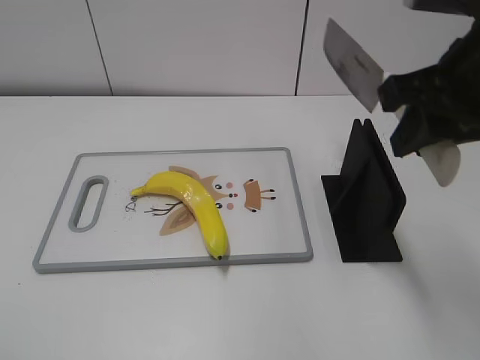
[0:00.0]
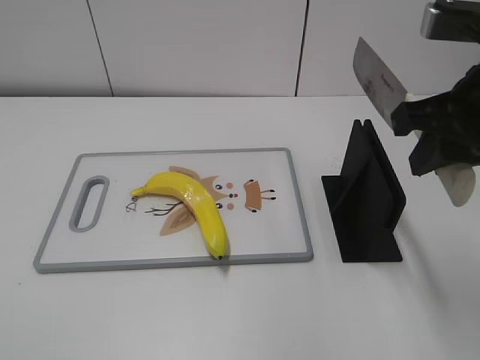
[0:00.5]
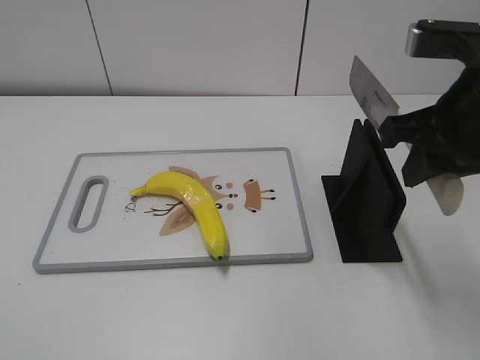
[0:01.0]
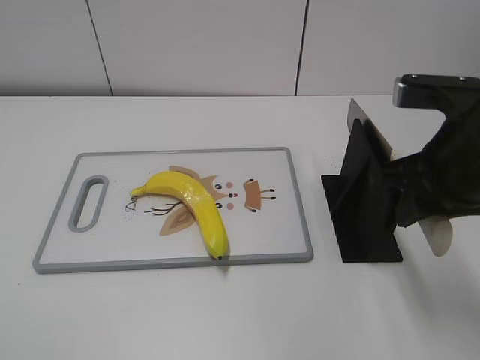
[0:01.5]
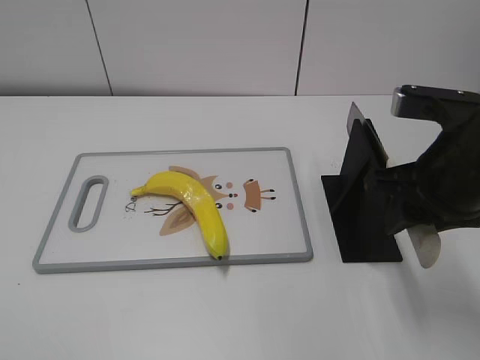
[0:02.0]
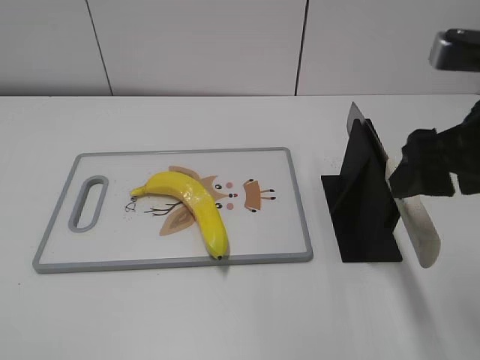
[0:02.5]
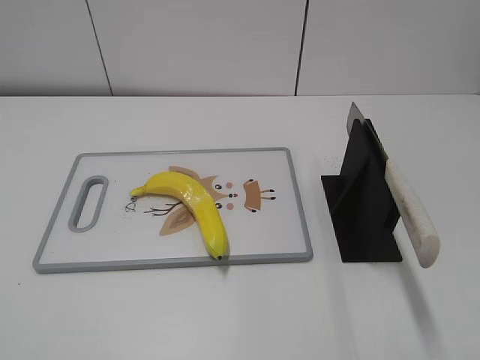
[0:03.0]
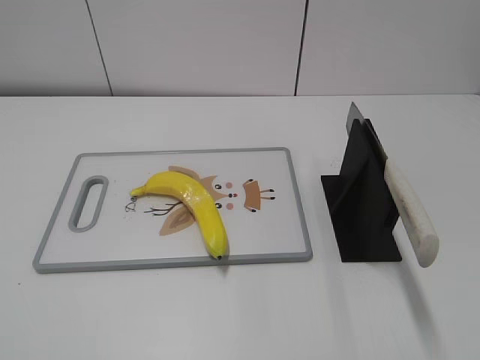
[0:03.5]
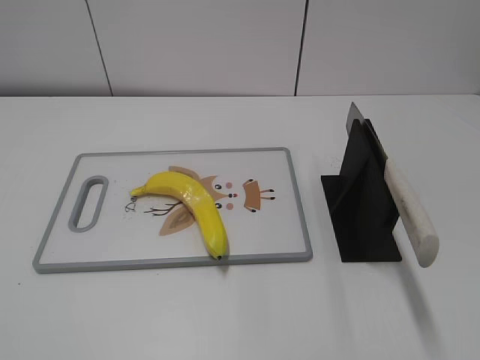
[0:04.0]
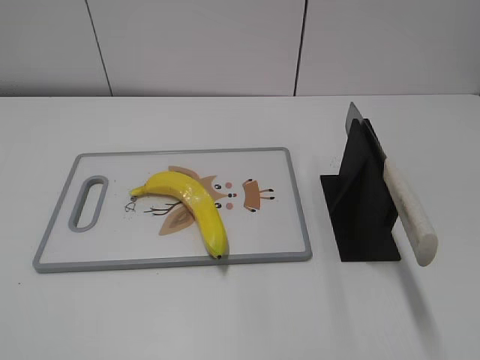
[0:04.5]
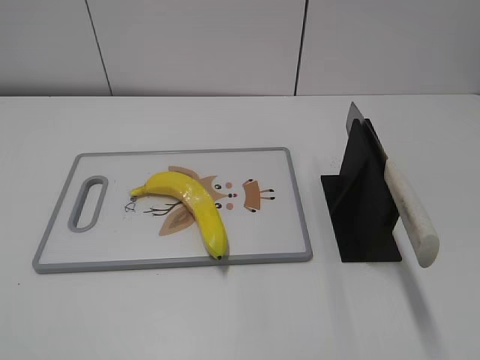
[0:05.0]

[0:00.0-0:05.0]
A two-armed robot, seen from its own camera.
Task of the whole recording: cut plastic banana.
Step, 0:00.0 to 0:01.0: Lift the knife with your right hand.
Step, 0:01.5 to 0:05.0: Place the knife on the storage rack with your right hand.
0:00.0 to 0:02.5: The right gripper opens.
0:02.5 to 0:05.0: The right gripper shifts about 25 cm backward and to the right.
